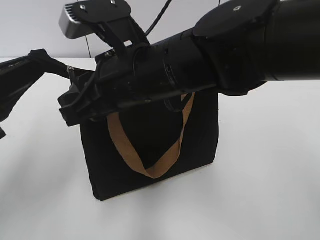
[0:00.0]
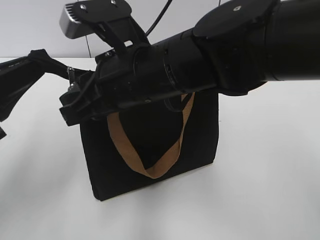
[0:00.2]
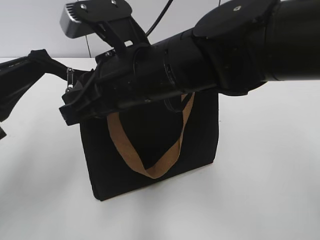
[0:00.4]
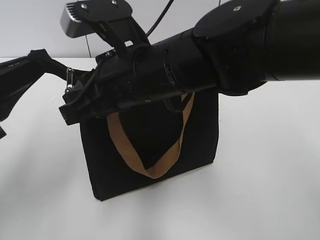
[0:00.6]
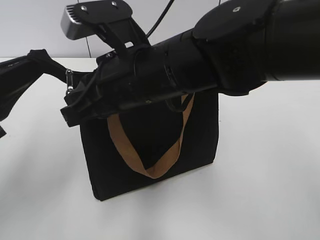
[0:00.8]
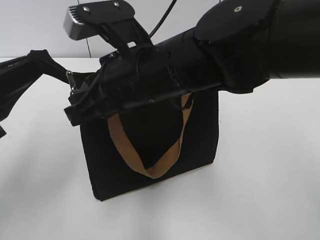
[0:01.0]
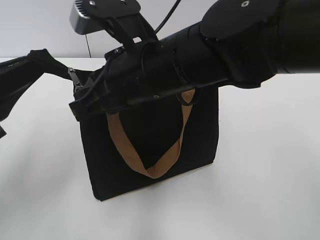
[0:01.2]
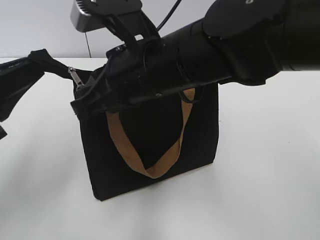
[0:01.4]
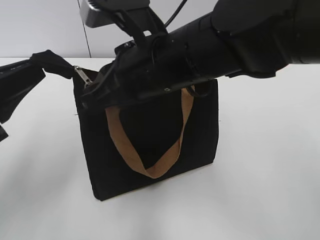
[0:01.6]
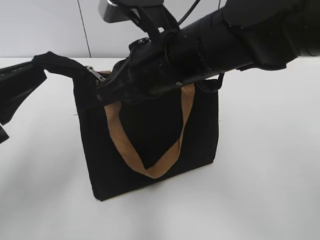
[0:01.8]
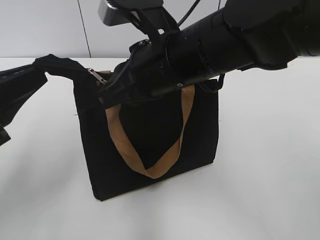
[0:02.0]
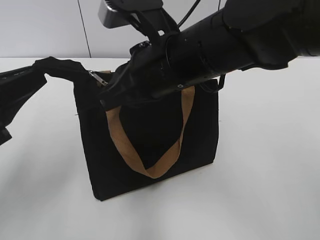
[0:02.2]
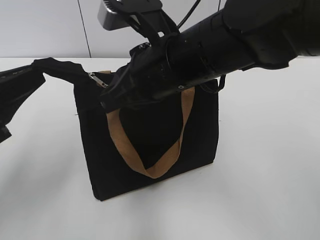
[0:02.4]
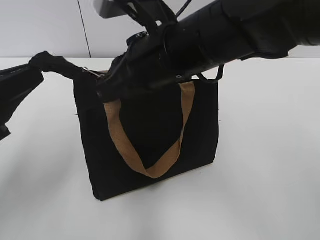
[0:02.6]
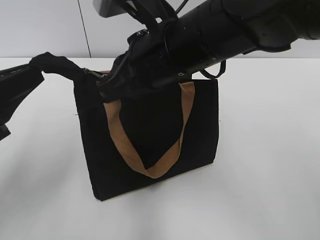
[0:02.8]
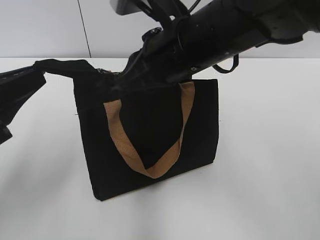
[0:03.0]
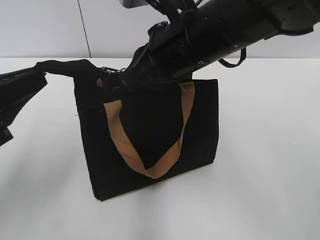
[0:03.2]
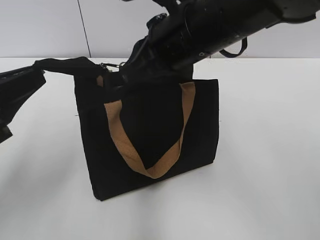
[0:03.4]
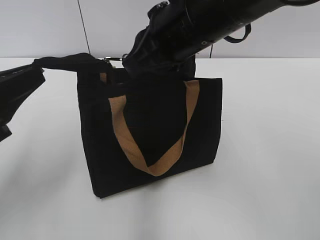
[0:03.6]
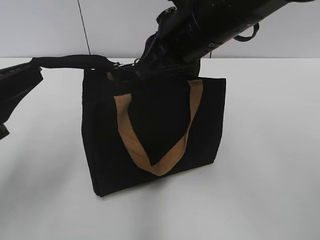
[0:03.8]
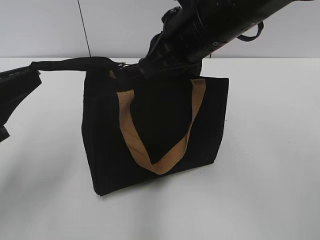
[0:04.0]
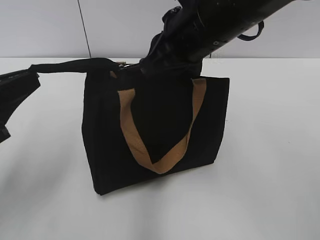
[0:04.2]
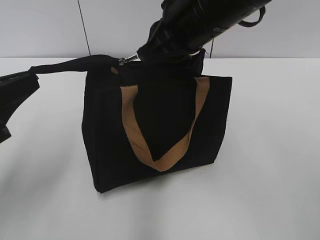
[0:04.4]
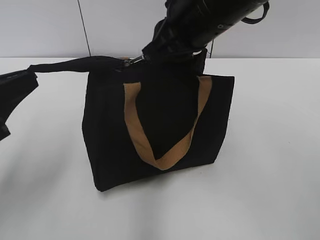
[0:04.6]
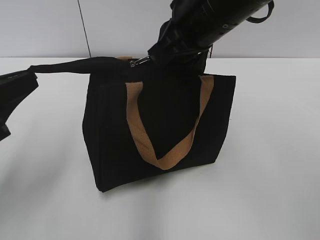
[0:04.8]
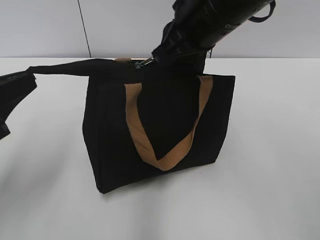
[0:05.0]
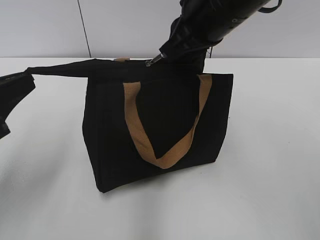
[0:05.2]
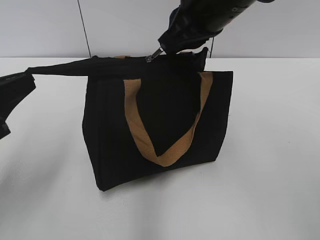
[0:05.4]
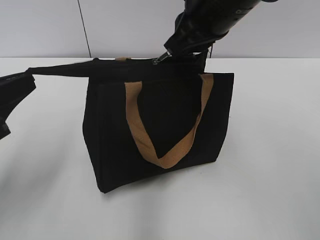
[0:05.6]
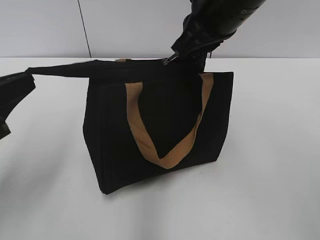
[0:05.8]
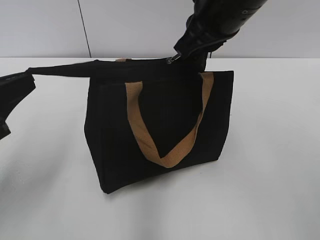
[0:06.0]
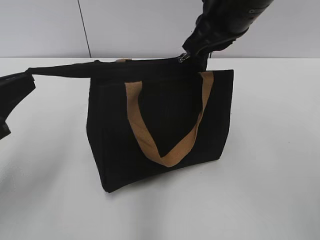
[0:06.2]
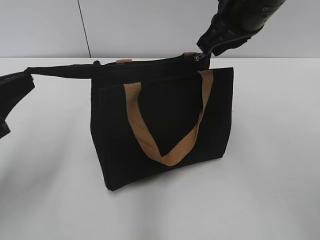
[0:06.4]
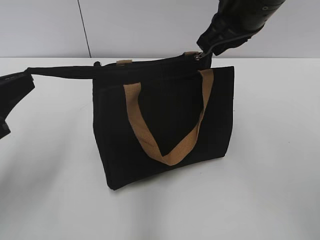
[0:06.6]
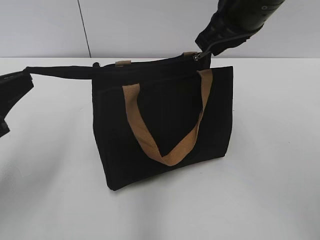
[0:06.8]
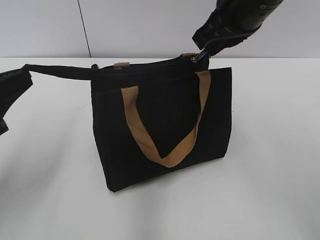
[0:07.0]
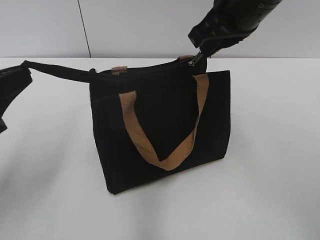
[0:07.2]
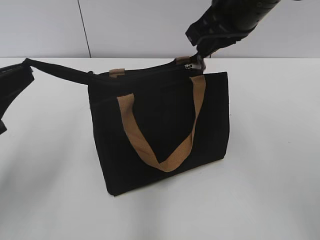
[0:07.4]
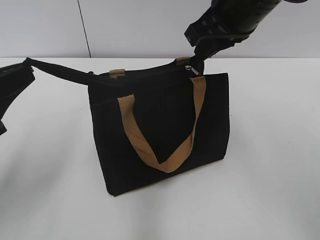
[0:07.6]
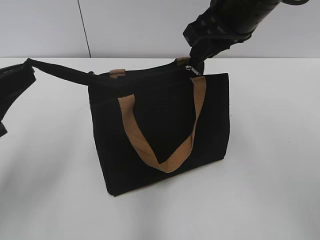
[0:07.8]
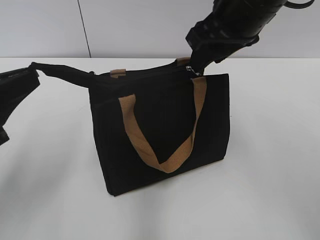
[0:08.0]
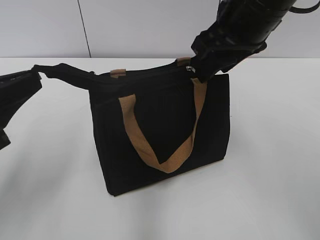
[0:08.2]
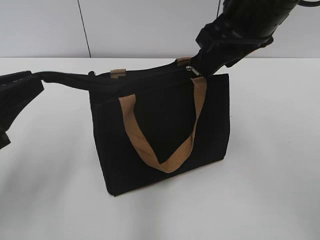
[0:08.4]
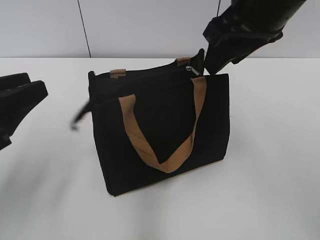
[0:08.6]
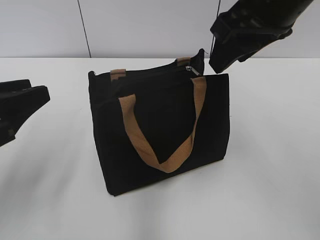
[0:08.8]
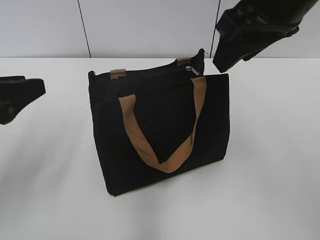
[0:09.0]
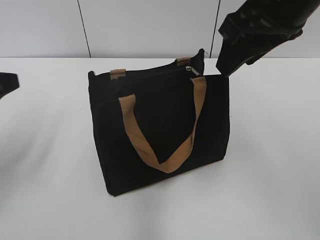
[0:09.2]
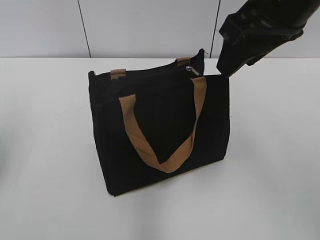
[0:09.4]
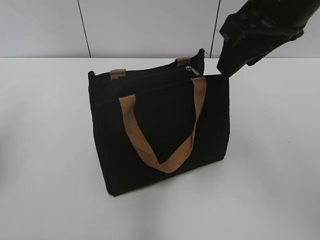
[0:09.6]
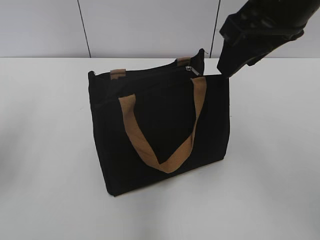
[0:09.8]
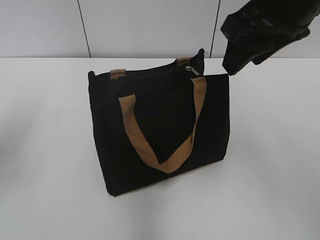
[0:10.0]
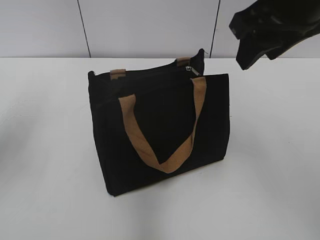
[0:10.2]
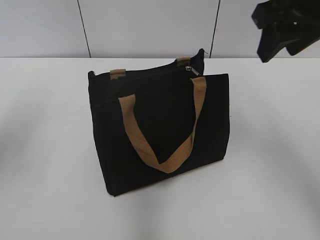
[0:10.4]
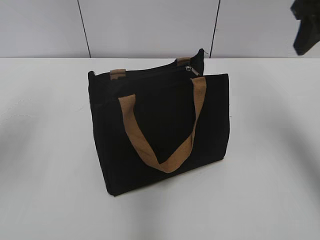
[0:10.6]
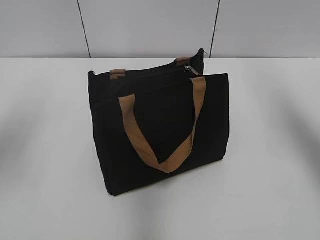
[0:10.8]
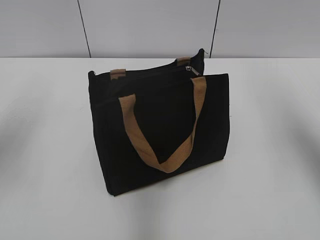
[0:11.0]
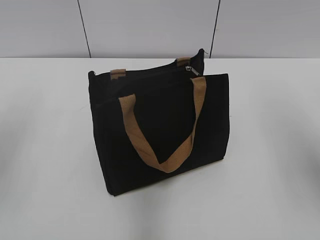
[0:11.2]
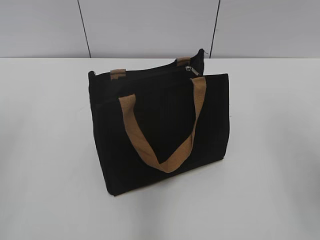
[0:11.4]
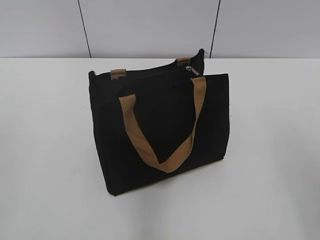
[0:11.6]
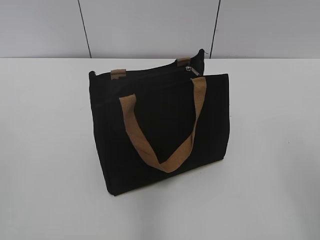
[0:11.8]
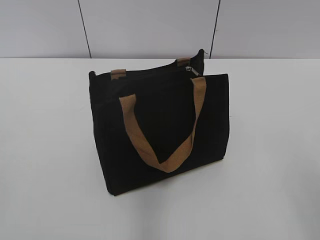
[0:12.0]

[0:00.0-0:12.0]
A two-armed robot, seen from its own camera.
Step, 0:00.0 to 0:07.4: Zip up the bag with your right hand.
Step, 0:07.6 to 0:08.4: Grab the zipper with your left hand.
0:00.0 to 0:01.6: The right gripper closes.
0:01.6 to 0:03.0: The grippers move only a little.
0:03.0 to 0:04.4: The grippers make only small movements.
0:04.4 to 0:06.0: The grippers make only small movements.
0:06.0 to 0:07.6: The grippers stay close to where they were, moving slightly.
0:07.6 to 0:09.0: The right gripper ends up some 5 cm from where it was, and opens. Meanwhile the left gripper opens.
0:09.0 to 0:10.4: The left gripper moves forward and upward, roughly 10 cm, while the right gripper changes place by roughly 5 cm.
0:10.4 to 0:12.0: Both grippers travel together backward, about 25 cm.

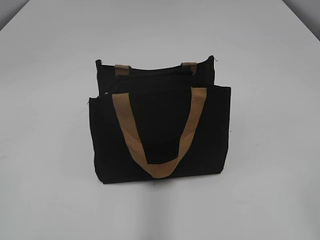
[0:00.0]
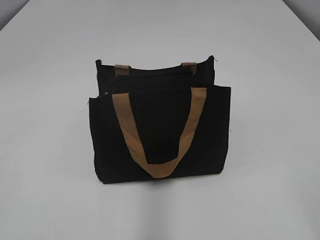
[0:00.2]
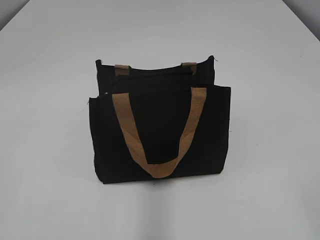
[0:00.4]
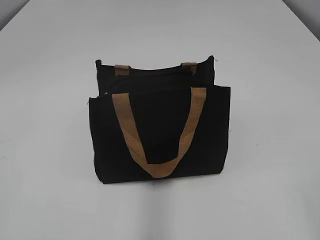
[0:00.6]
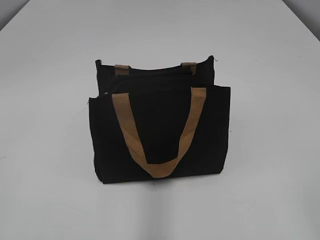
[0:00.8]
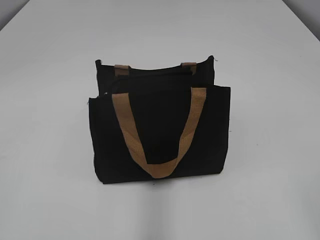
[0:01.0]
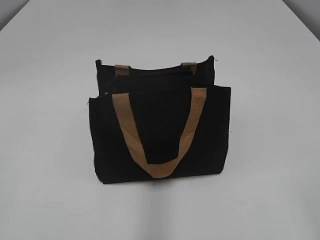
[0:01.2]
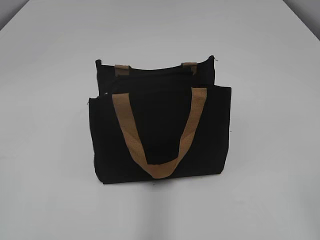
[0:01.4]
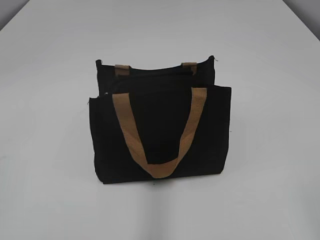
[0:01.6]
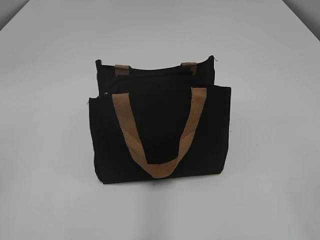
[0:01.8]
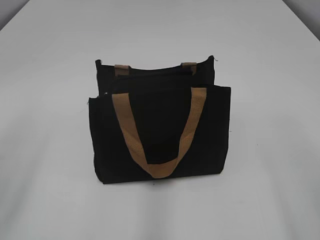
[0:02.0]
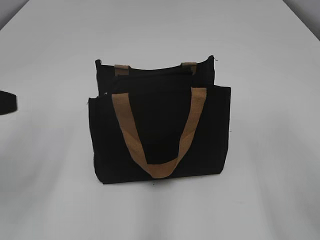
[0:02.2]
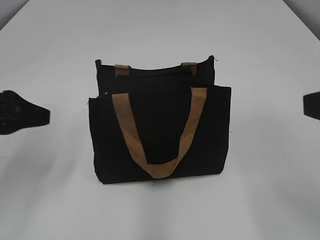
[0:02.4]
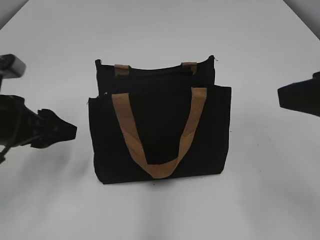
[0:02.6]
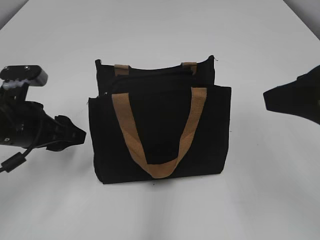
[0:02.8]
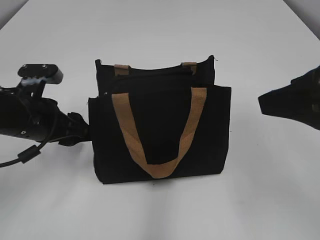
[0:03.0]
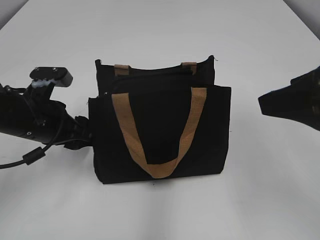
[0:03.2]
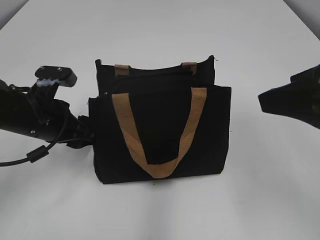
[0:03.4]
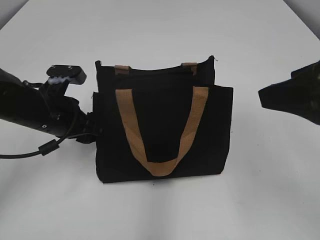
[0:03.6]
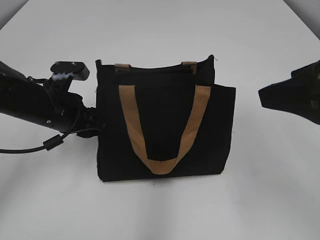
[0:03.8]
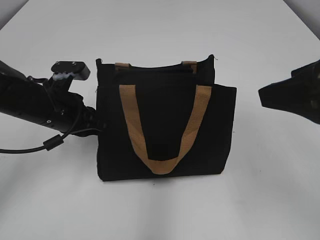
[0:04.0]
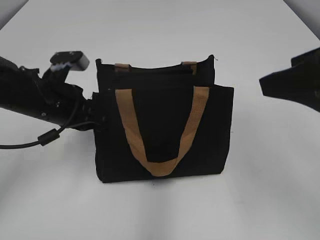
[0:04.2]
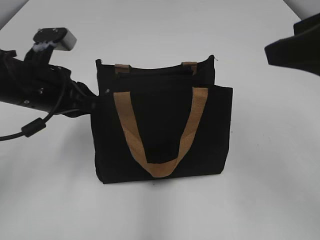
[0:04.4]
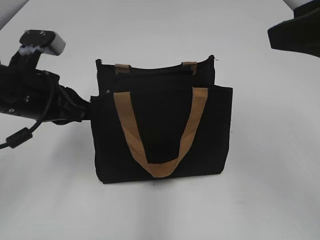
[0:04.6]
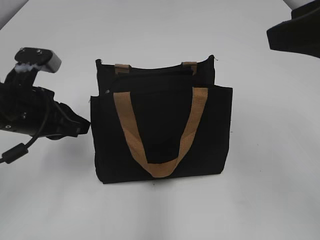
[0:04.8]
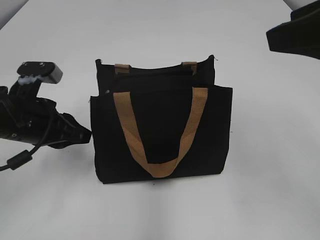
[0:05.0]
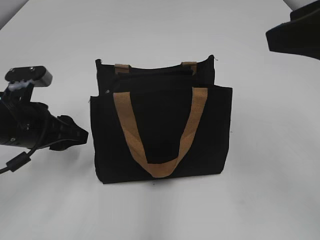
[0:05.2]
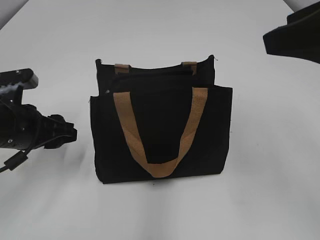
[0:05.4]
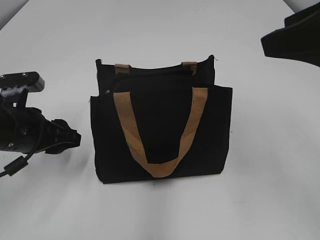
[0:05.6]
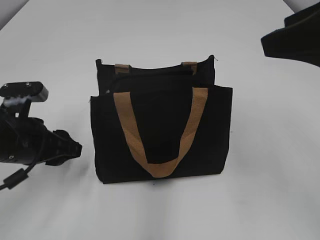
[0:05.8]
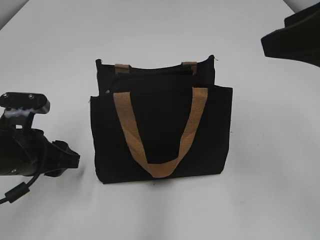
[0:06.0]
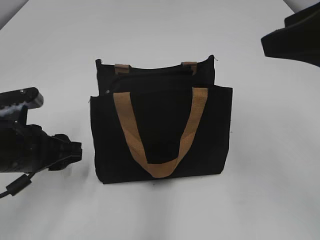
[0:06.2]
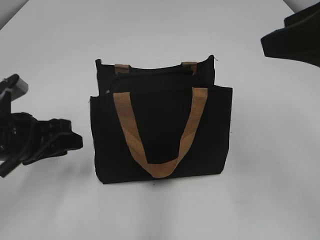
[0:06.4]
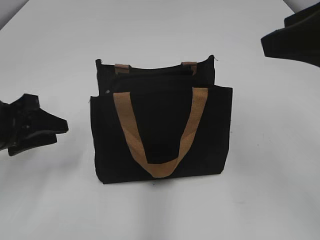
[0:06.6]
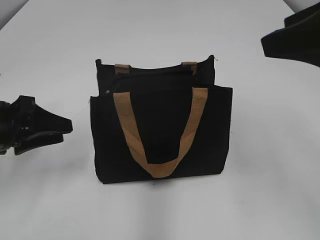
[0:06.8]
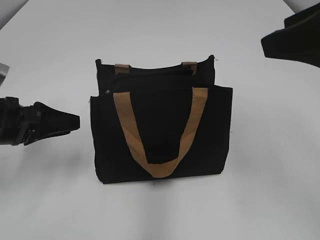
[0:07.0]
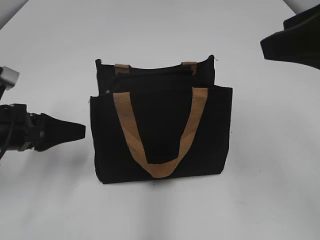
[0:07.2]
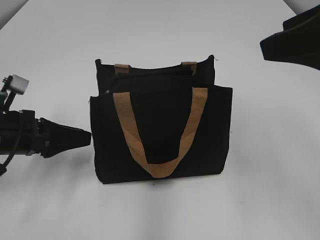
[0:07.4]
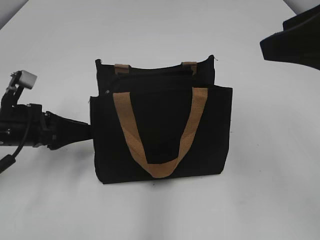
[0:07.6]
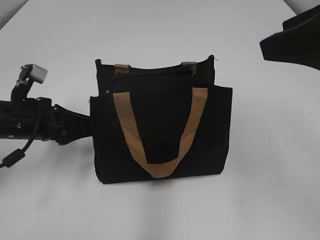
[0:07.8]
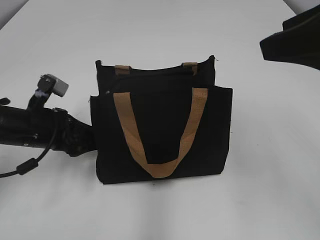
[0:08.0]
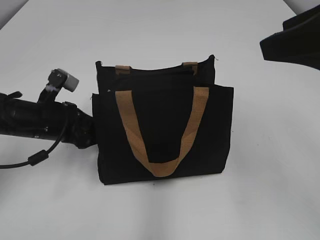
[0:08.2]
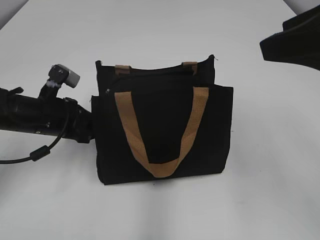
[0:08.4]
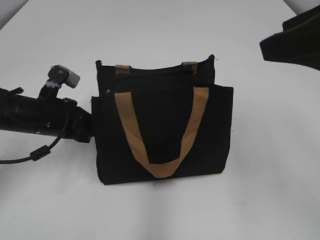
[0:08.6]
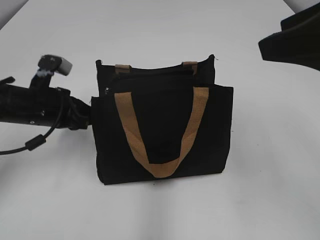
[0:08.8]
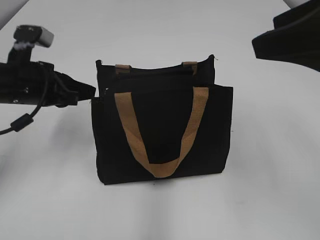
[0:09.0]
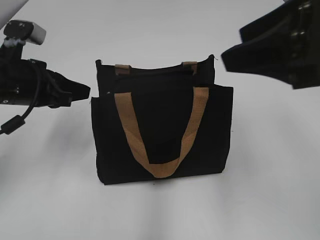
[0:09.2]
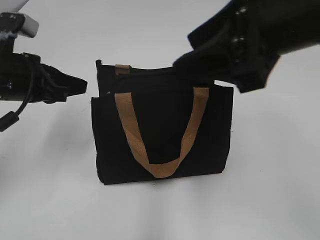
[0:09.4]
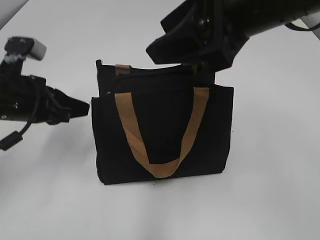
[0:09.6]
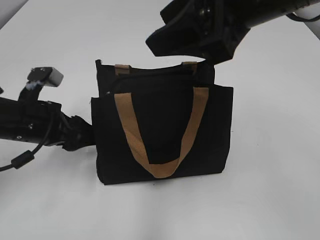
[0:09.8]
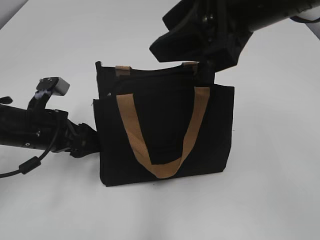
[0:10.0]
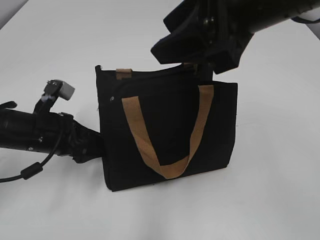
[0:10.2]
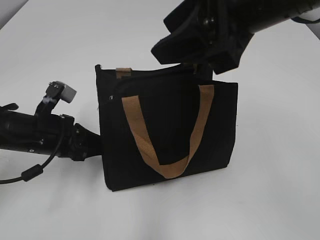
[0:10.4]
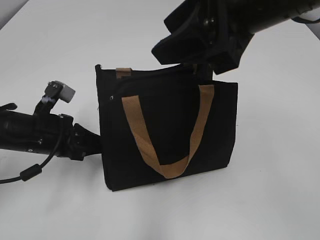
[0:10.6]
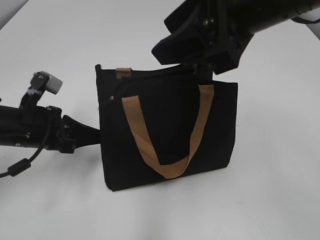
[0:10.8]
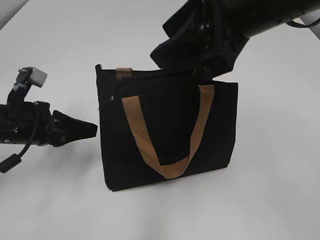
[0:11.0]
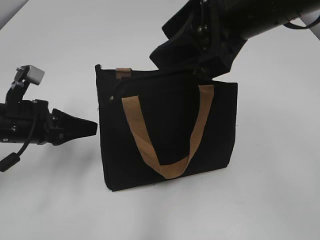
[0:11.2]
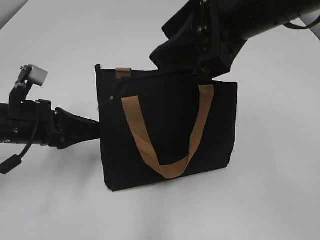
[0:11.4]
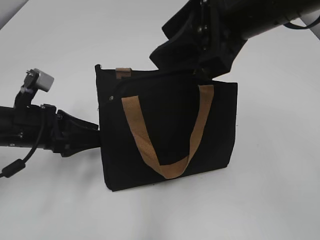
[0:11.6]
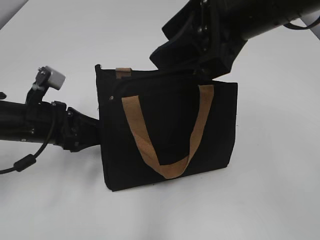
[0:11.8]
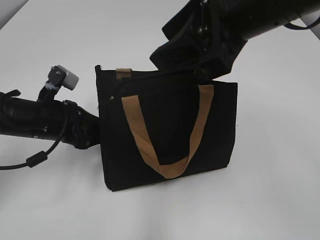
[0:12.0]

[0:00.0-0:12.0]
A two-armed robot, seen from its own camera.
0:01.6 to 0:03.0: The right gripper moves forward, approximately 20 cm; the left gripper moves forward, downward and to the right, some 30 cm, and opens up.
0:03.0 to 0:04.4: The left gripper moves some 5 cm, and closes its fingers.
0:04.4 to 0:06.0: The left gripper goes about 10 cm downward and backward, and opens.
0:06.0 to 0:07.6: The left gripper is displaced forward by about 5 cm.
0:07.6 to 0:09.0: The left gripper goes some 5 cm upward, and closes up.
0:09.0 to 0:10.4: The left gripper goes roughly 10 cm downward, and opens, then closes once more, while the right gripper shifts some 10 cm to the left.
0:10.4 to 0:12.0: The left gripper opens up.
